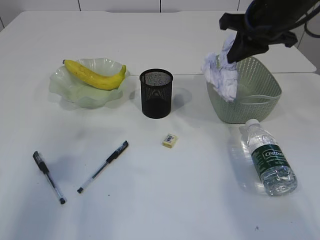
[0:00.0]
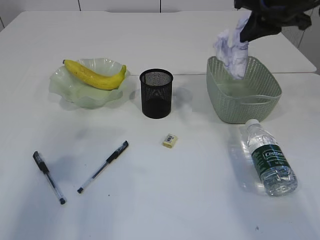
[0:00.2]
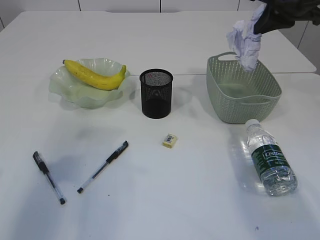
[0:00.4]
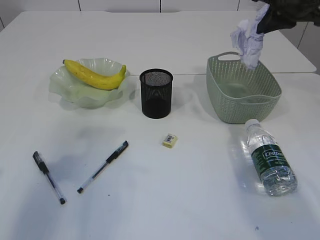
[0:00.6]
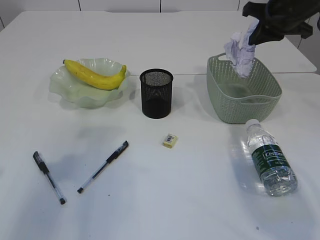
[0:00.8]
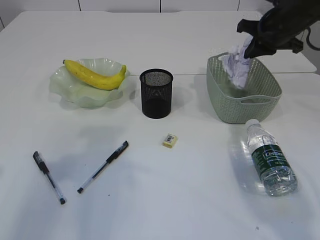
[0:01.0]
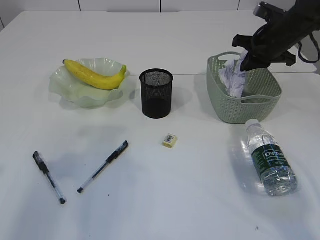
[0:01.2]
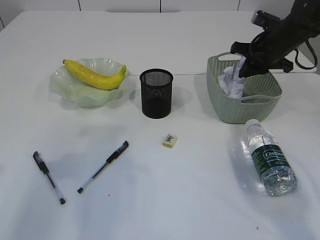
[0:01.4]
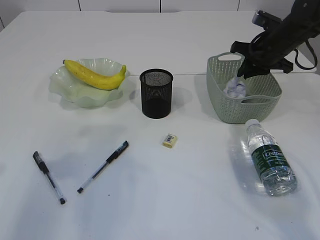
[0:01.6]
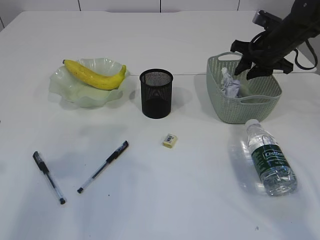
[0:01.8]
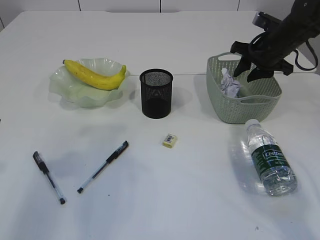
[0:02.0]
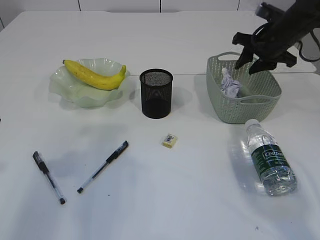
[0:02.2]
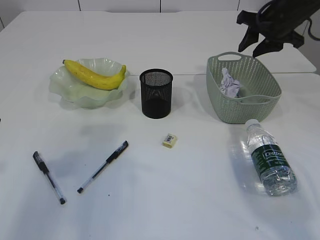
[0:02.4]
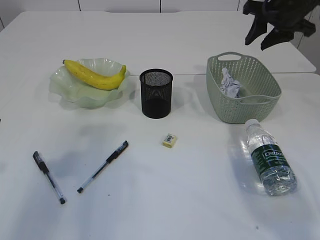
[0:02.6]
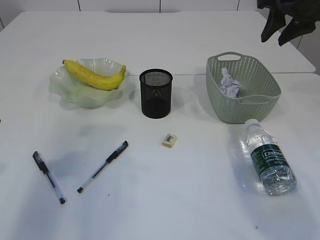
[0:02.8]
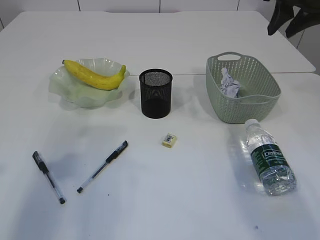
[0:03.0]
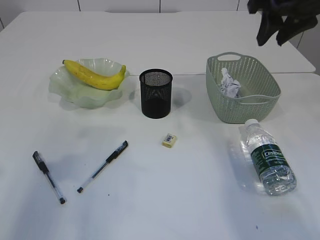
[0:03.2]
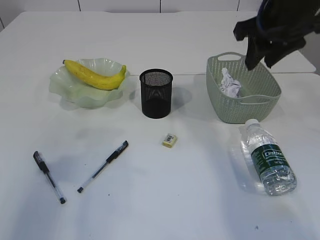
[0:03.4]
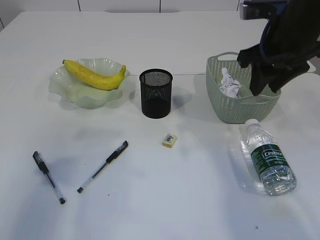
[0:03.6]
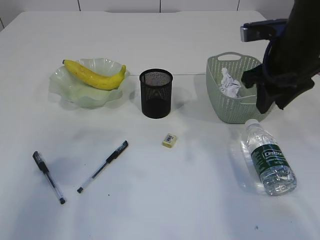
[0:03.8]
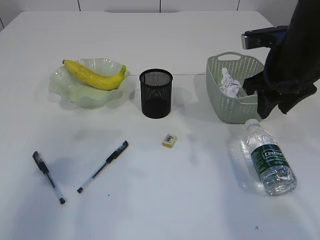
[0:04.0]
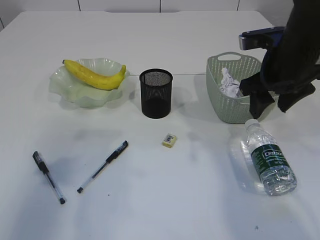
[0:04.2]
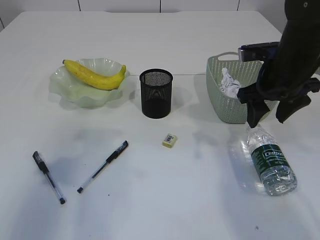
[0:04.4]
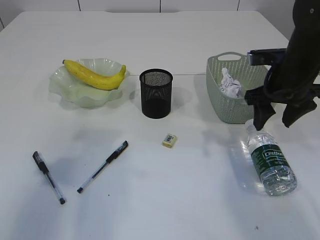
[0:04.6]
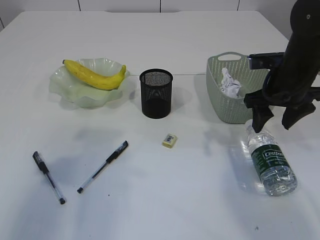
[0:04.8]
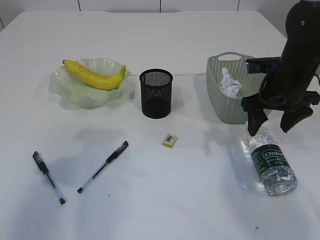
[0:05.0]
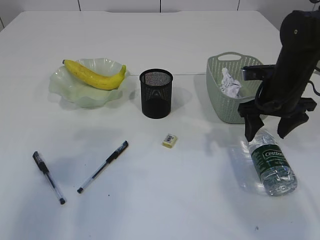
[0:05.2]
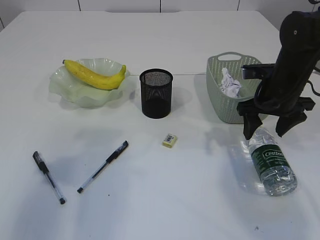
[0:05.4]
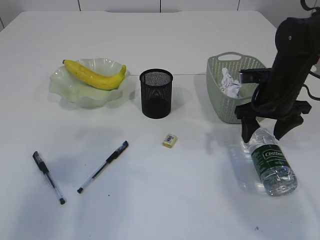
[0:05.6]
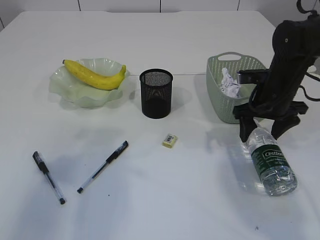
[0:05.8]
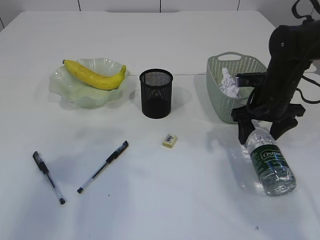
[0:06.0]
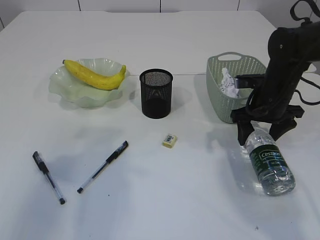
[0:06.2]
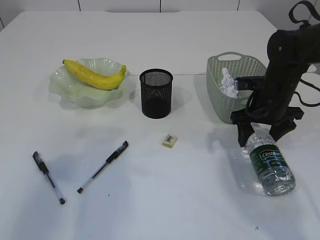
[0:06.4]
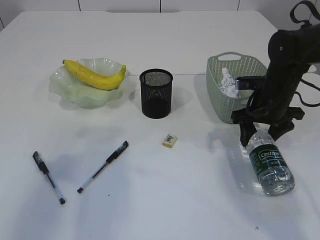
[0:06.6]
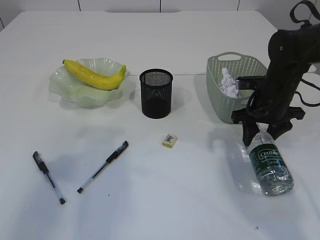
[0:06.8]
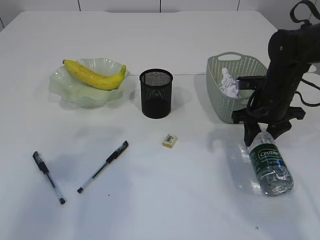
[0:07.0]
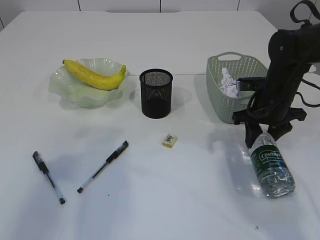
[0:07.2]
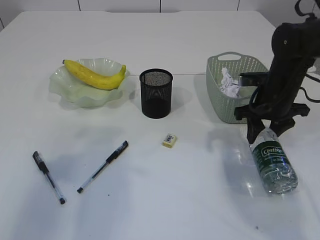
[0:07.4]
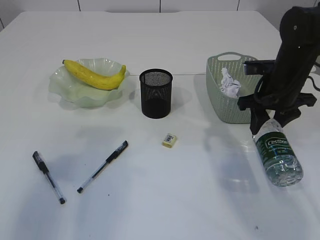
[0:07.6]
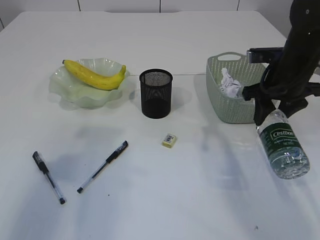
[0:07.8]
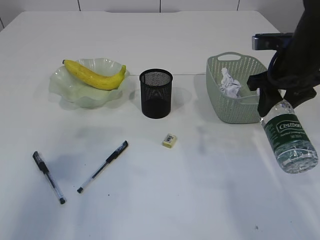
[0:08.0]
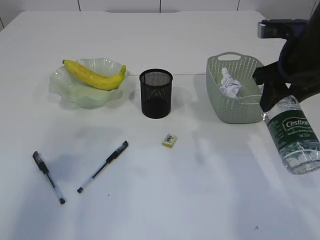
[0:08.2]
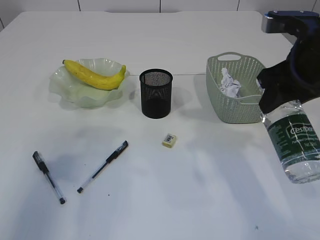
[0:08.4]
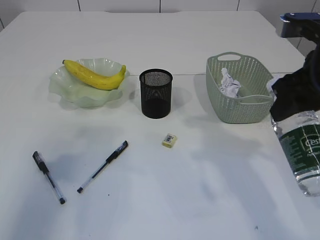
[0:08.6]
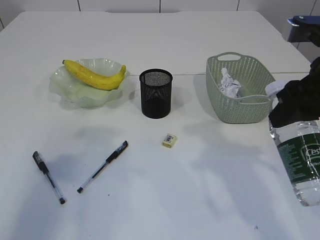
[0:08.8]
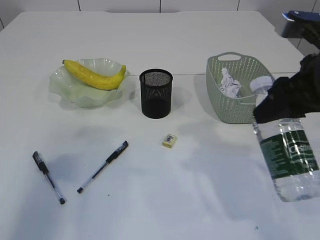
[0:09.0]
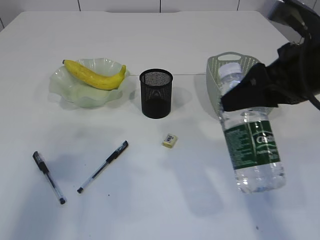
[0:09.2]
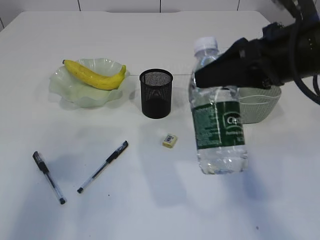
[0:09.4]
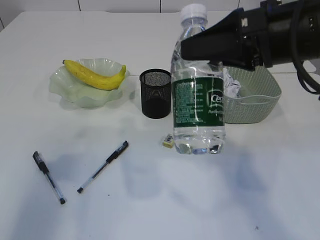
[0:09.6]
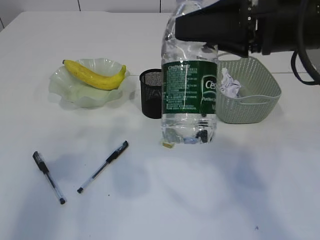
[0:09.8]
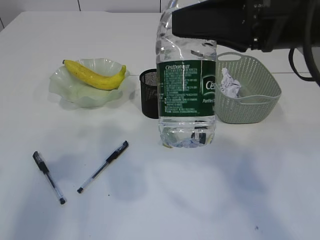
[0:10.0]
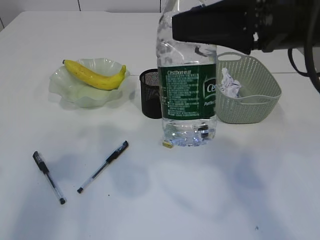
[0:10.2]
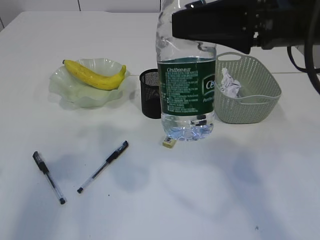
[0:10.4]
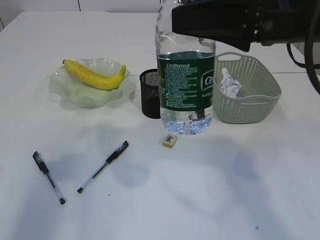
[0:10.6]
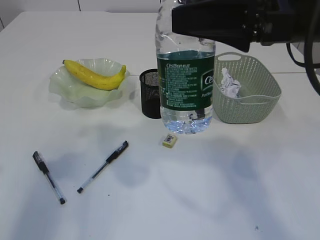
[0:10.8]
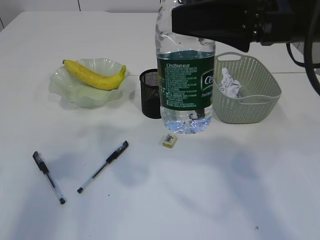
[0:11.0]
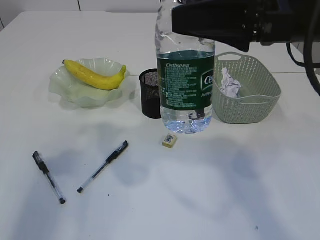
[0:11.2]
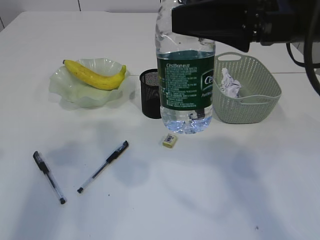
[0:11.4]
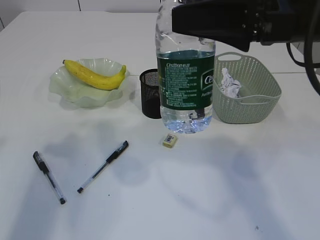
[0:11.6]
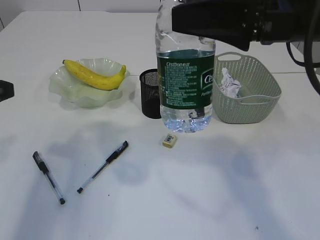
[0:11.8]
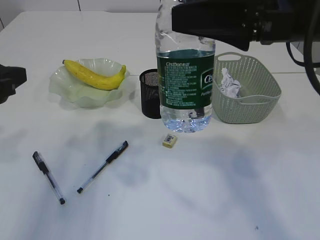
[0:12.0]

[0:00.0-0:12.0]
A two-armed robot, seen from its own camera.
Step, 0:00.0 to 0:02.4: Place the waste paper in the basket.
Step, 0:02.6 to 0:07.8: Pick up the bottle with the right arm.
0:00.0 to 0:01.6: The right gripper travels downward, forward and to the right by some 15 cm.
0:01.6 to 0:03.0: The right gripper shifts some 15 cm upward and backward, and opens.
0:03.0 to 0:04.4: The right gripper heads downward, backward and to the left, covering approximately 15 cm.
0:04.4 to 0:06.0: The right gripper heads downward, covering approximately 10 cm.
0:06.0 to 0:07.6: The right gripper closes its fingers.
0:07.6 to 0:09.0: The right gripper heads backward and upward, covering some 20 cm.
0:09.0 to 0:10.4: The right gripper is displaced to the left and upward by roughly 10 cm.

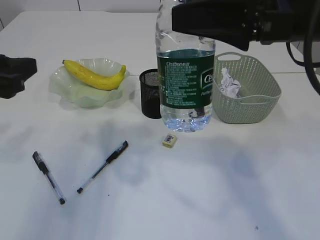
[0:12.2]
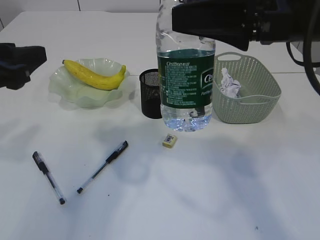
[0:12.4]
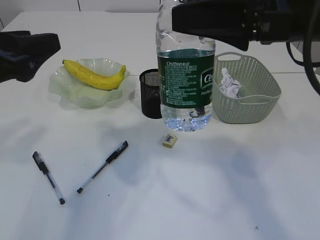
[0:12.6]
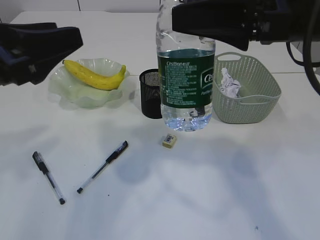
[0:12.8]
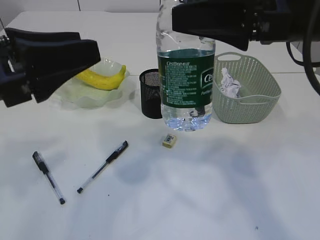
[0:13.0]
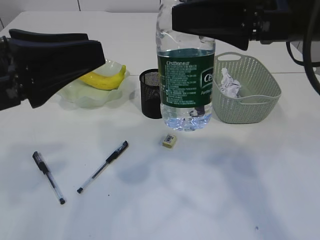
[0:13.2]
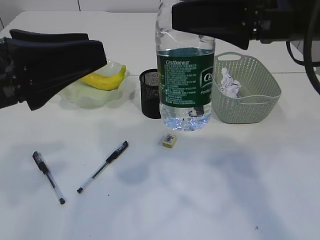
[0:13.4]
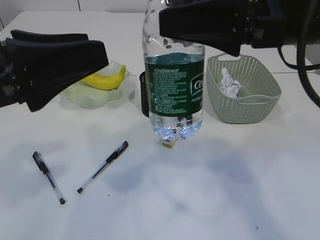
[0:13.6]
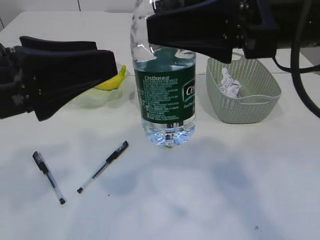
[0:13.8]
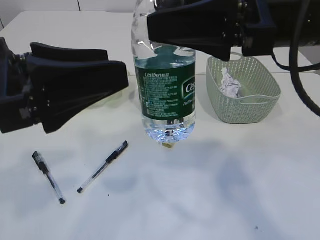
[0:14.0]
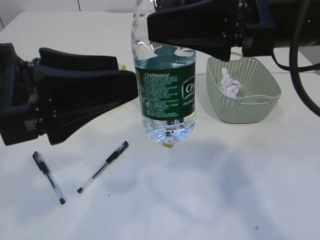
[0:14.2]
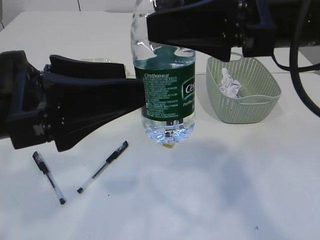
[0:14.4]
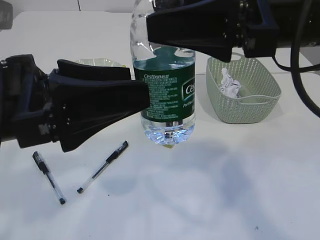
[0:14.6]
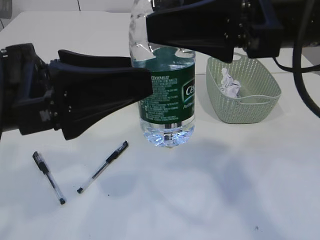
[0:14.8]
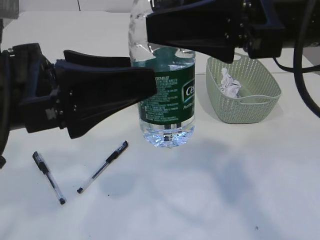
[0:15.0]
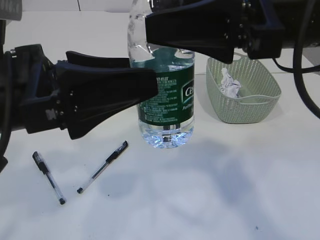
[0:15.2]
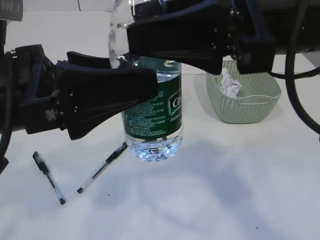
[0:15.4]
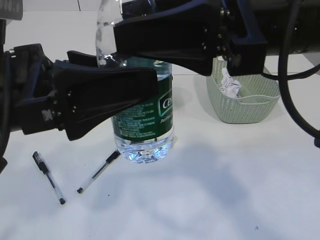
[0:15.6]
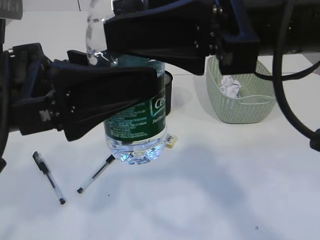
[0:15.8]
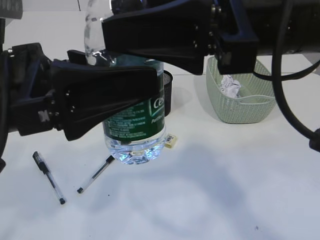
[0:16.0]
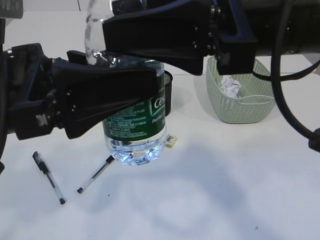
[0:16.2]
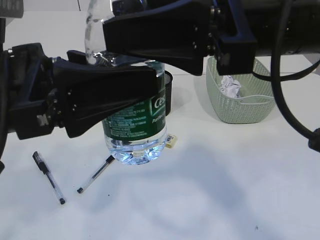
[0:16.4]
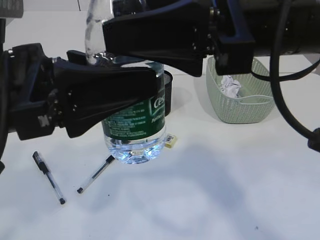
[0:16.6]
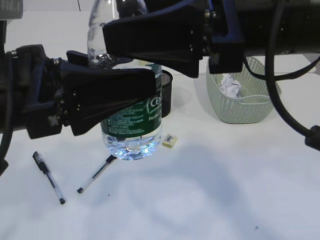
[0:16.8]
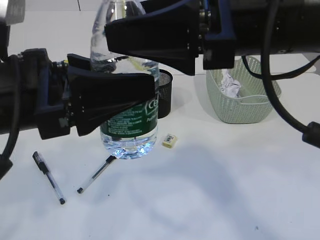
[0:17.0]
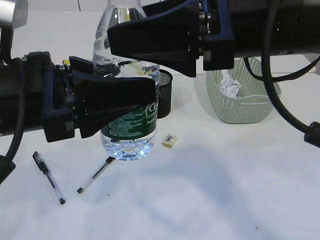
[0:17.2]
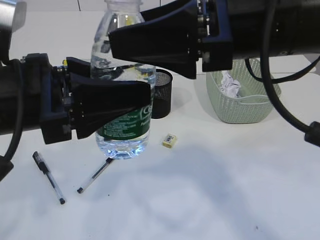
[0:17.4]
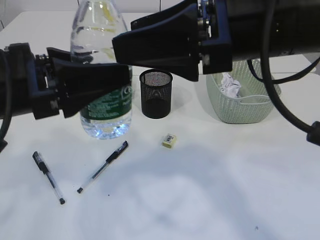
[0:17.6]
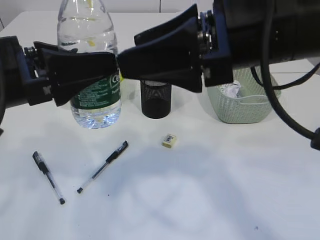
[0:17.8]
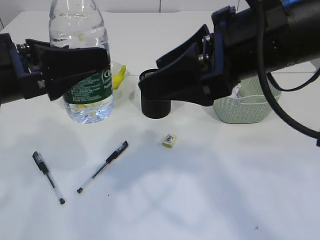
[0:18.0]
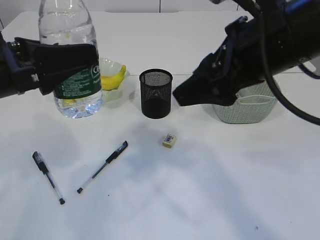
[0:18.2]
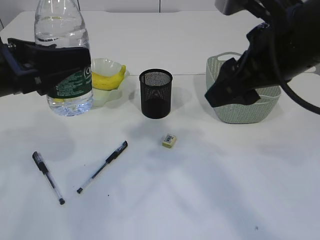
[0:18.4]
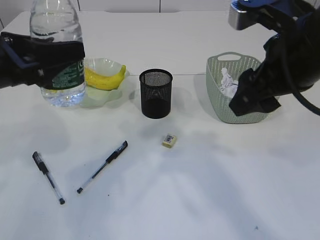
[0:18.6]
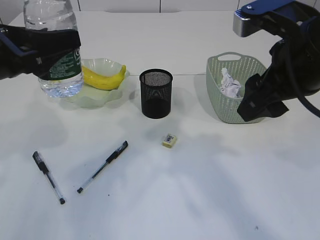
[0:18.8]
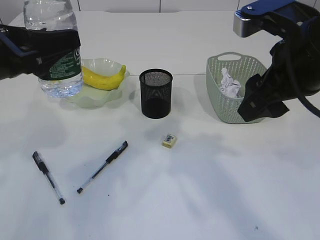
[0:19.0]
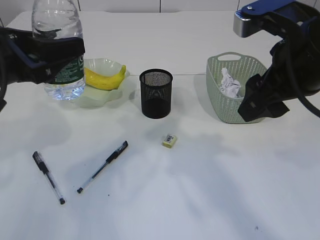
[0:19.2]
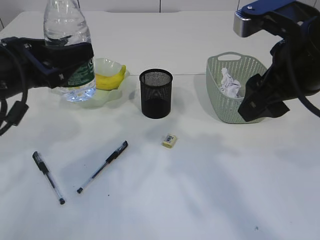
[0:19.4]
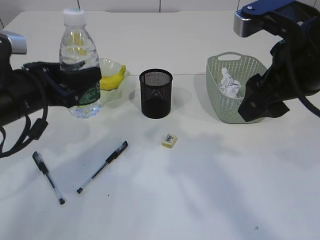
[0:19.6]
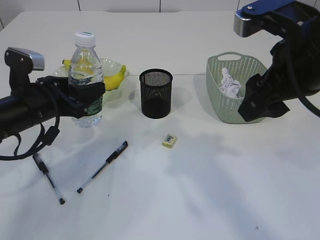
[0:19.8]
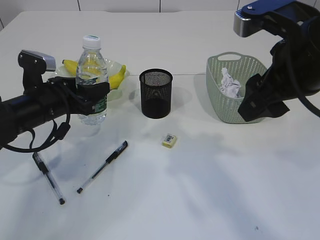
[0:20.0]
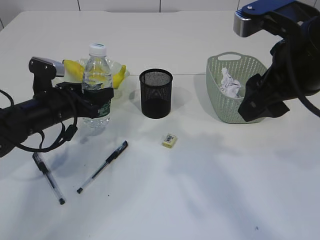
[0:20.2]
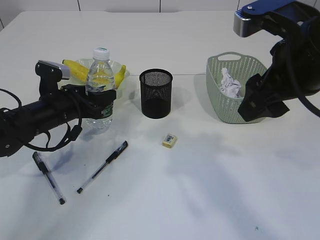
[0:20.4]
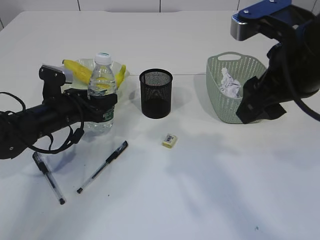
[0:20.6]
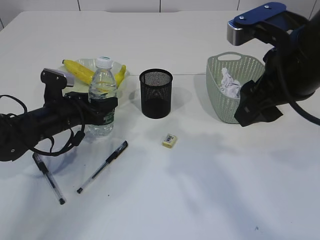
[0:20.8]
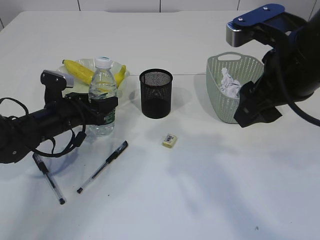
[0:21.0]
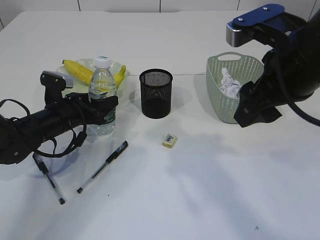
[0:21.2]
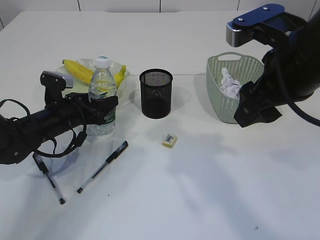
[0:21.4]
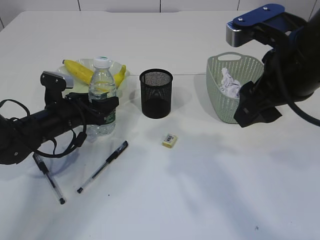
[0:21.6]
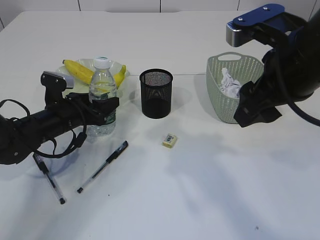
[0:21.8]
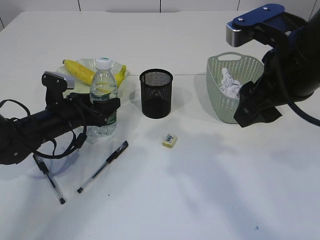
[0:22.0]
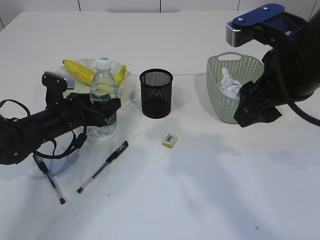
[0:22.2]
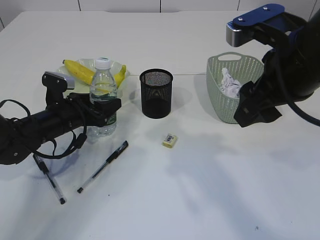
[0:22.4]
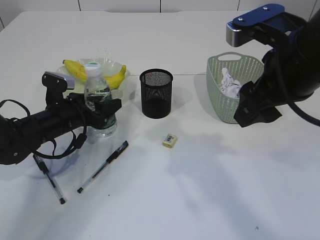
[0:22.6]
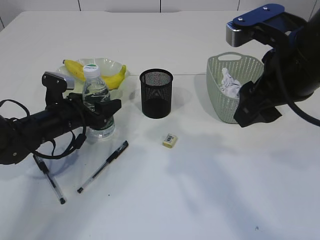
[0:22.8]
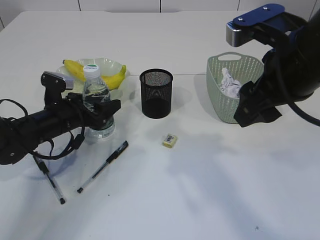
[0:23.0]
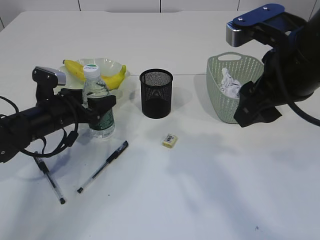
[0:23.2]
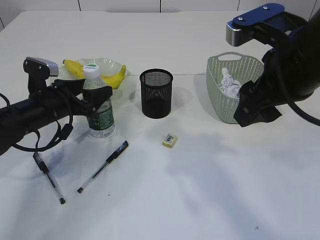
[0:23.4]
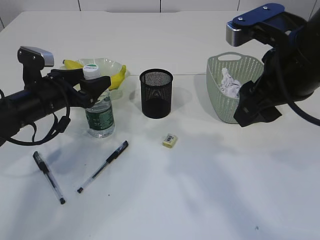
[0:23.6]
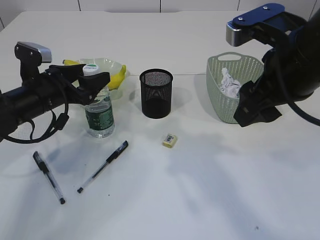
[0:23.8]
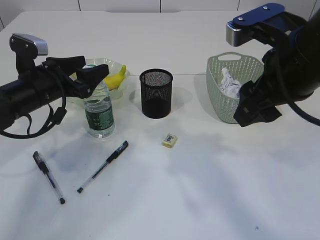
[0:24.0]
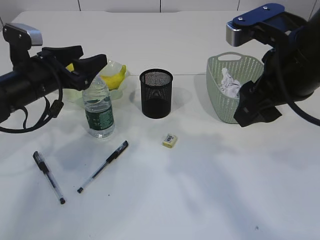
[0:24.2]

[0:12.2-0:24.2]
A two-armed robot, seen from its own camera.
Step, 0:12.2 to 0:17.6: transfer the pen to the left arm.
Step, 0:17.8 to 0:24.0: Place the bottle.
0:12.2 to 0:13.8: The left gripper travels to the right by approximately 5 cm.
0:13.8 to 0:16.6: The grippers stay close to where they were, moving slightly.
0:16.6 to 0:18.2: The left gripper travels to the left and forward by some 10 cm.
0:18.2 to 0:19.8: The left gripper goes roughly 15 cm downward and forward.
0:19.8 to 0:21.2: The left gripper goes some 10 cm downward and forward.
0:21.2 to 0:22.6: Both grippers stay put.
0:22.6 to 0:24.2: The left gripper travels upward by about 10 cm.
